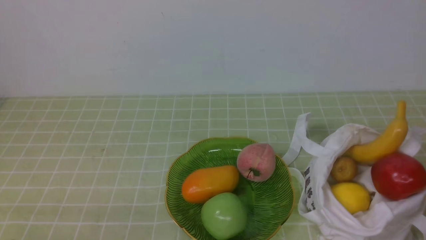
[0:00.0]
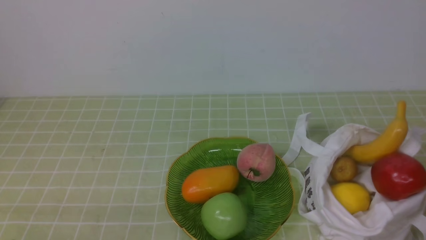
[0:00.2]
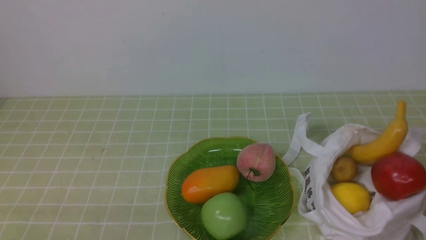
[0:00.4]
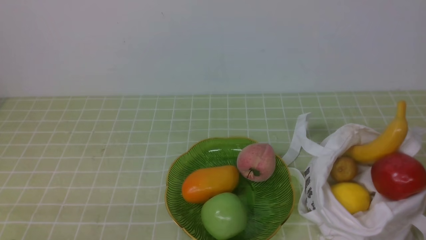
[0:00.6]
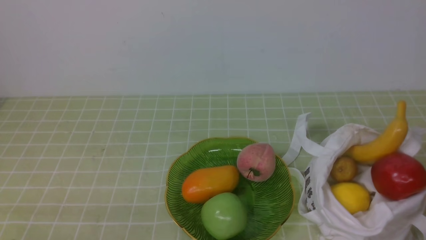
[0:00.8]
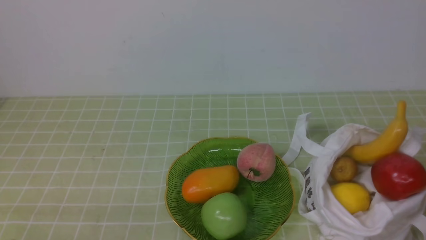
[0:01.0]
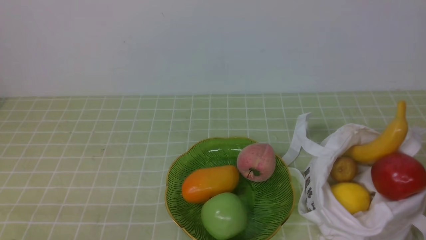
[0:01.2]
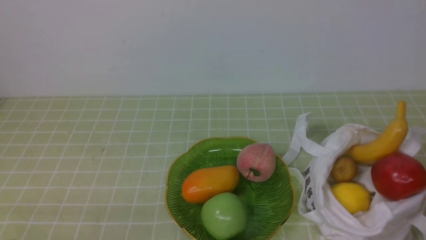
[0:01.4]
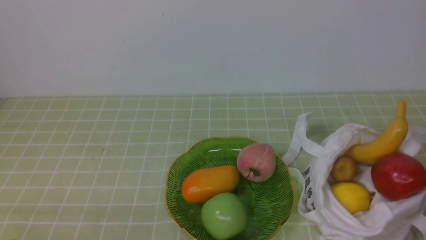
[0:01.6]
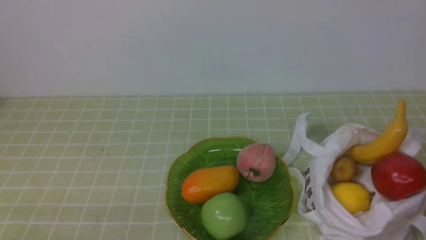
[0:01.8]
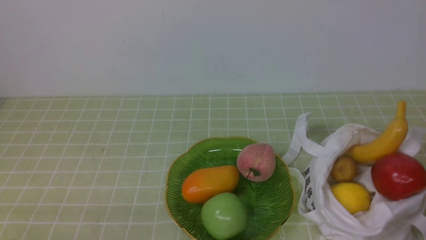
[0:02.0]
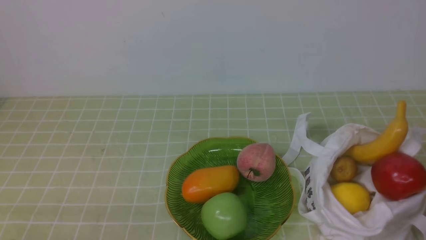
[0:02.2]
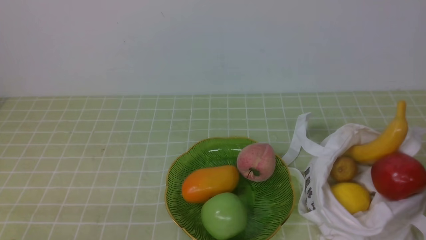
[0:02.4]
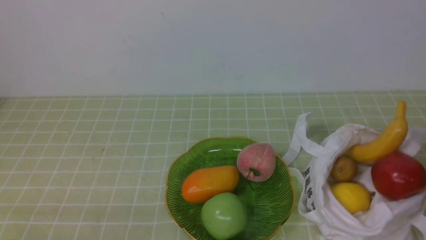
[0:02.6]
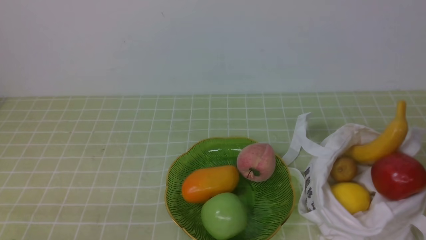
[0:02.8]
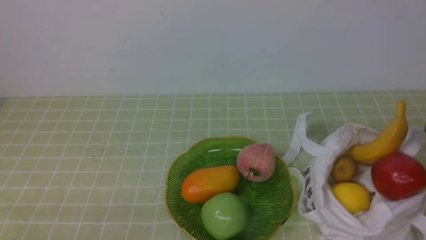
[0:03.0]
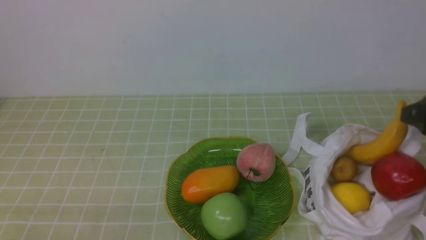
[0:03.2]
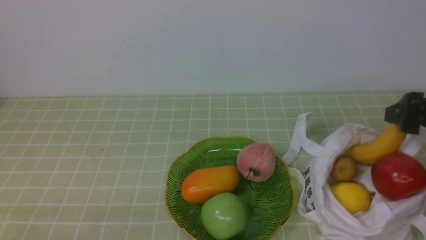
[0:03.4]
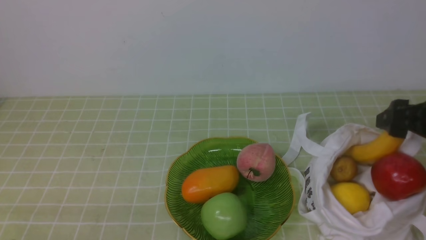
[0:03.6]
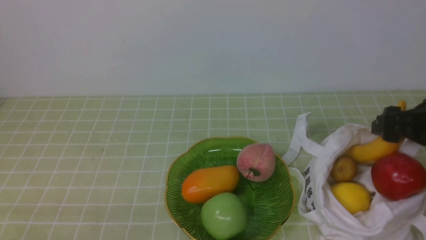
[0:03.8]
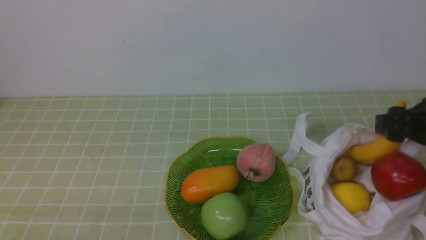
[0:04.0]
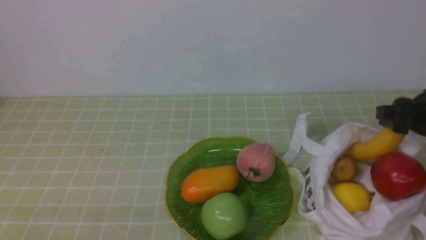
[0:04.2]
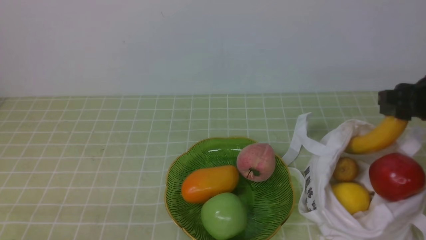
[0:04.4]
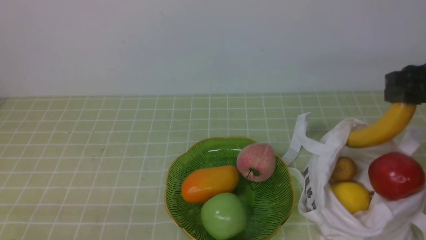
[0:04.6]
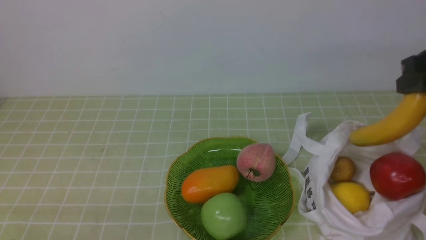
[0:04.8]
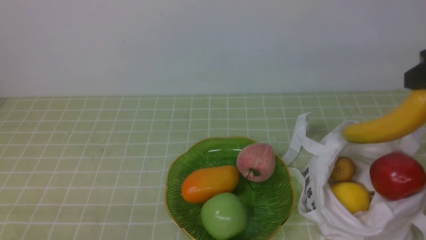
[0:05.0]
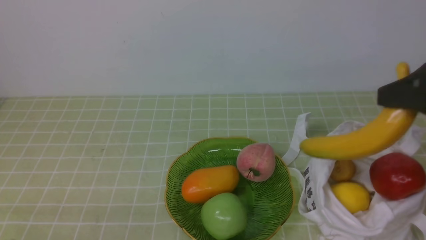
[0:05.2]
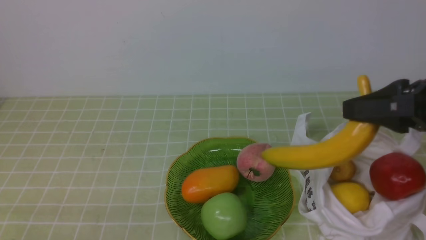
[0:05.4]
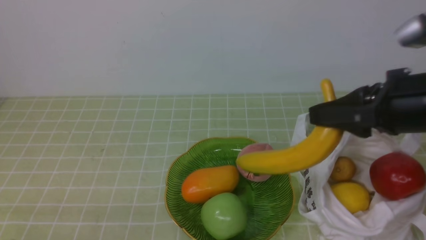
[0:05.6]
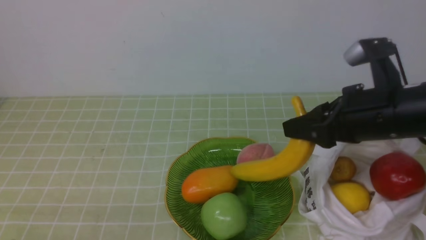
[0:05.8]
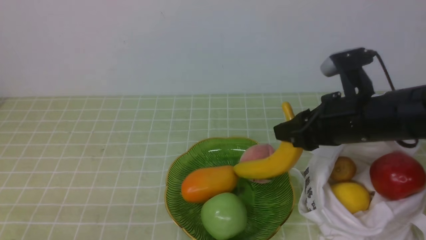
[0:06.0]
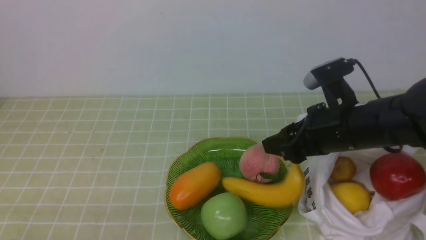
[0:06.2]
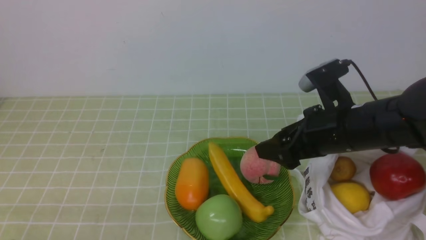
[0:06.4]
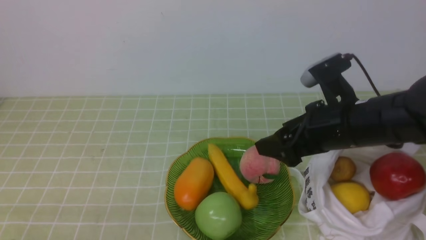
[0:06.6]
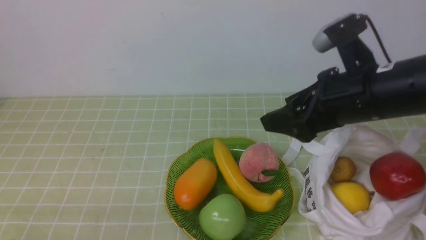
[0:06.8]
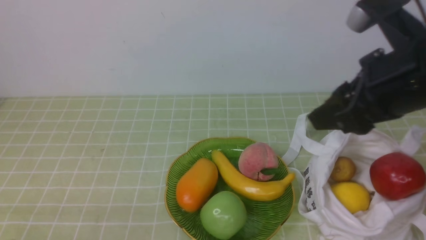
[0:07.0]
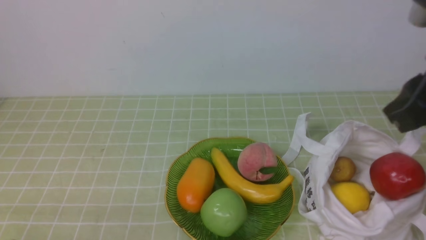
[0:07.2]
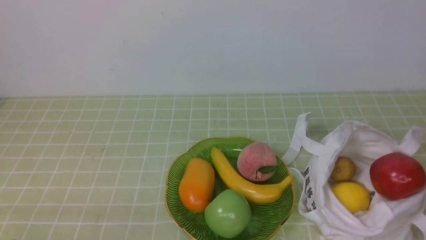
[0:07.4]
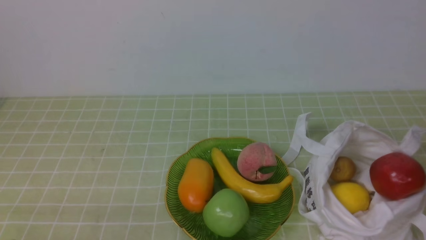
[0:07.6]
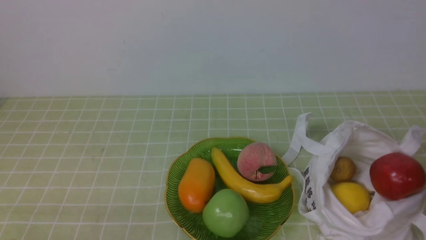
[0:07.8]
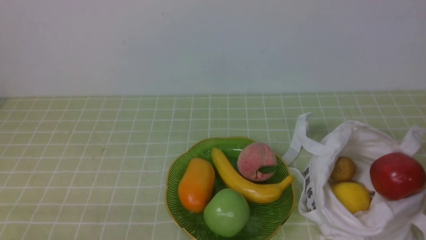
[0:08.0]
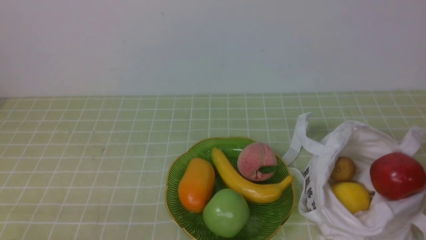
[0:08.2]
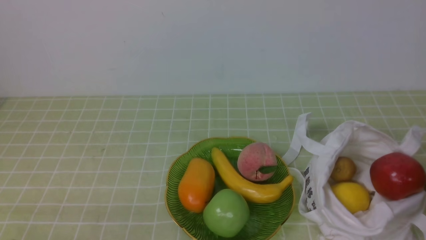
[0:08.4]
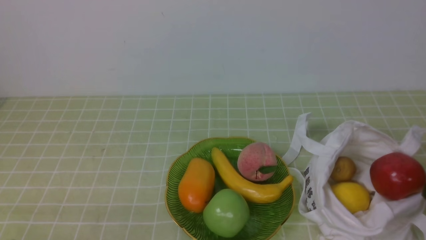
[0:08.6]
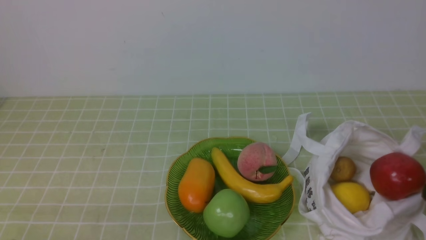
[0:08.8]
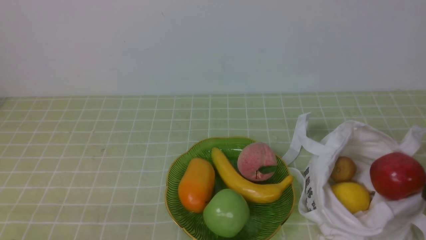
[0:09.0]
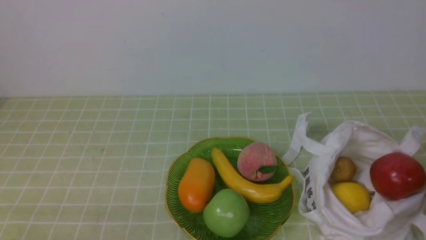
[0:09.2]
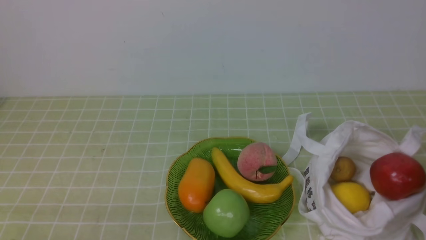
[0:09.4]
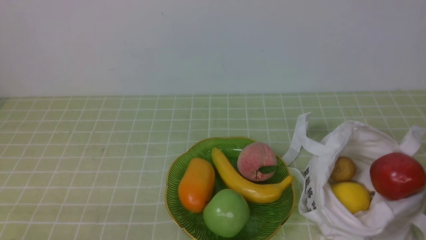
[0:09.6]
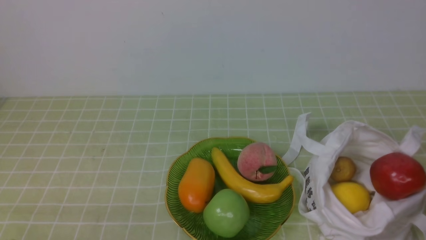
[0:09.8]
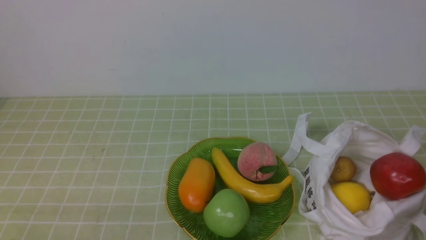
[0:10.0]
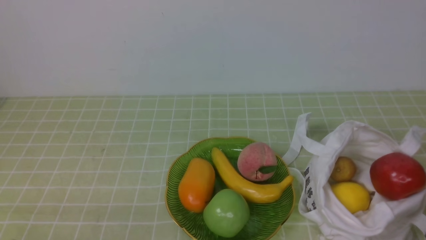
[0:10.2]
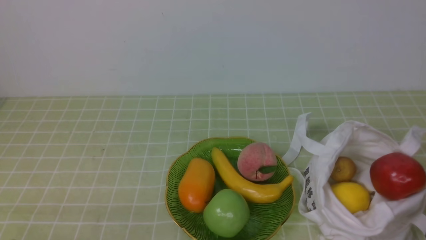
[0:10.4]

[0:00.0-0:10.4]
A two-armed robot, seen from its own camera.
Step, 0:04.2 to 0:06.4: use the right arm to put the banana into the empty plate on the right.
0:00.0 to 0:01.4: Neither gripper changes place.
0:03.0 to 0:04.4: The right gripper moves forward, roughly 10 cm, and opens, then closes again.
0:04.4 to 0:06.0: The right gripper travels to the left by approximately 15 cm.
0:06.0 to 0:07.4: The right gripper moves backward, upward and to the right, roughly 20 cm, and closes up.
0:07.4 to 0:09.0: The right gripper travels downward and backward by some 15 cm.

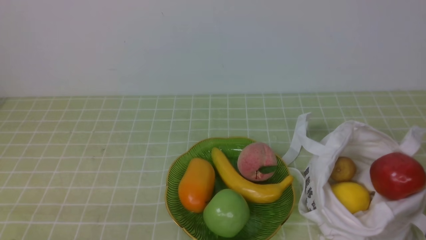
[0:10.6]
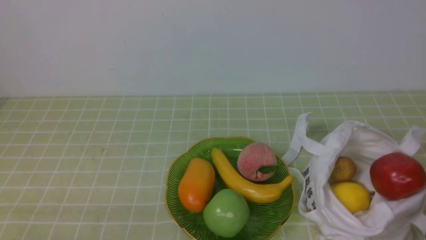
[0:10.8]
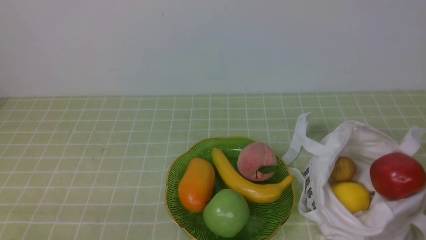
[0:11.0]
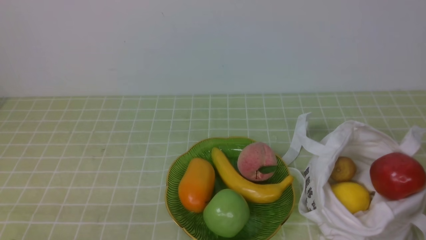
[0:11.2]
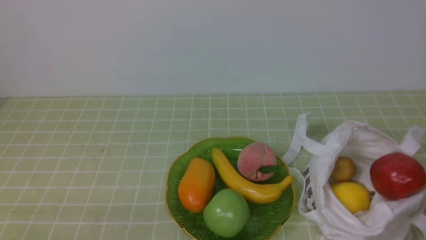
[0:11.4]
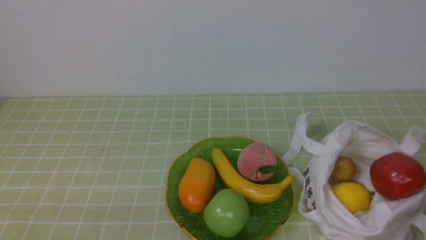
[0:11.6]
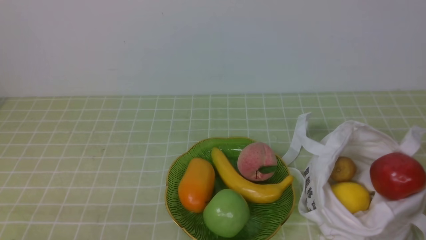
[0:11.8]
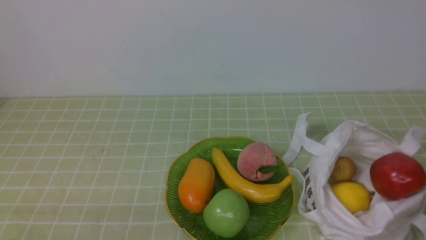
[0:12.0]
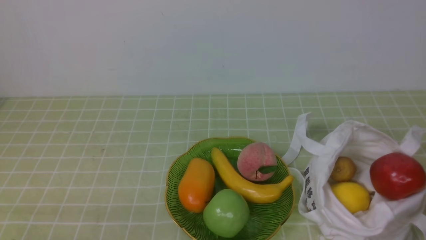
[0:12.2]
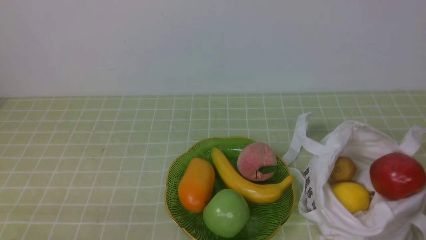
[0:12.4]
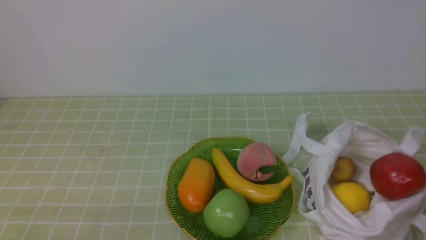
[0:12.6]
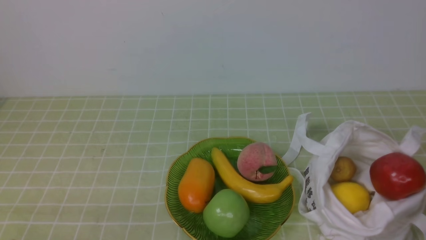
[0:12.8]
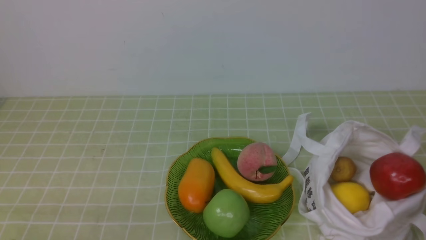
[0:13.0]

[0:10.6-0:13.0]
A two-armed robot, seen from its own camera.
0:10.6 to 0:13.0: Both grippers stay put.
